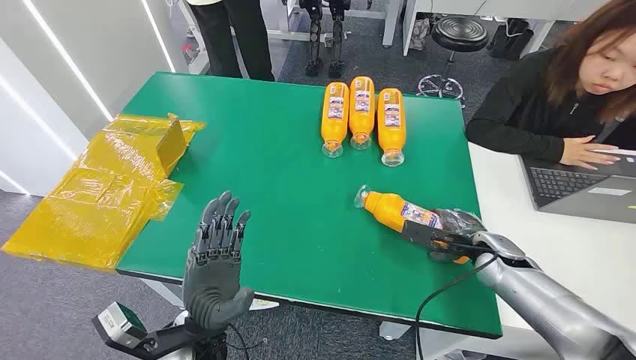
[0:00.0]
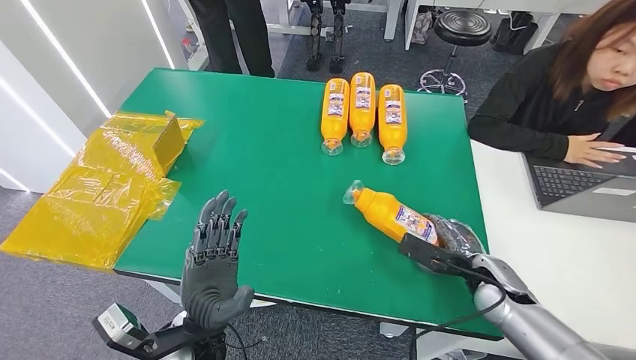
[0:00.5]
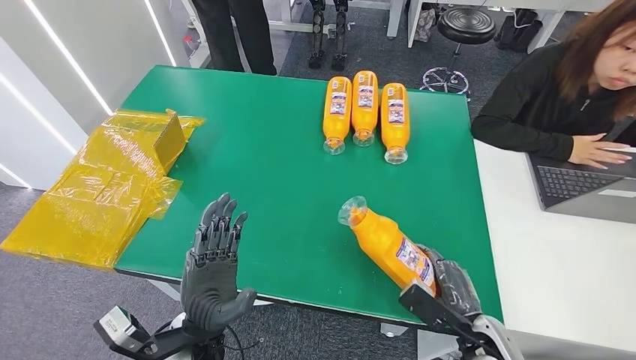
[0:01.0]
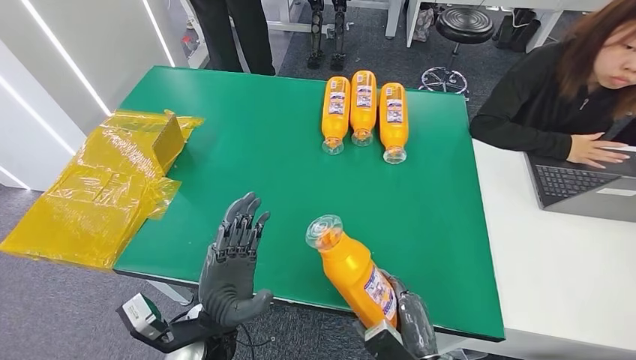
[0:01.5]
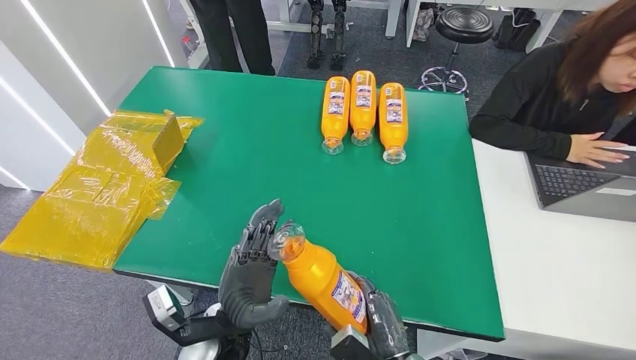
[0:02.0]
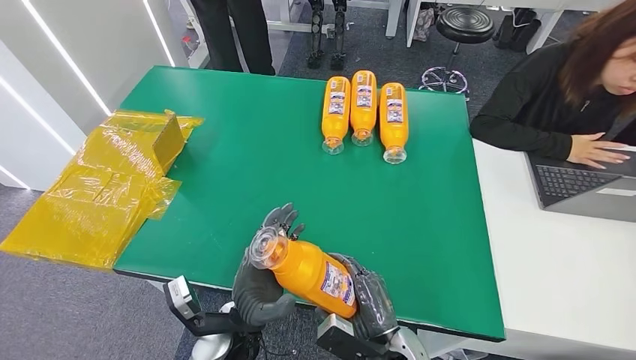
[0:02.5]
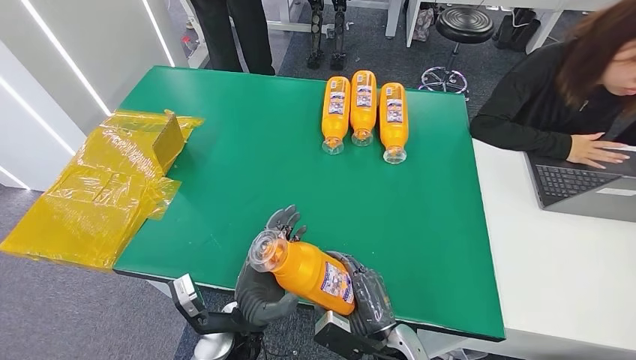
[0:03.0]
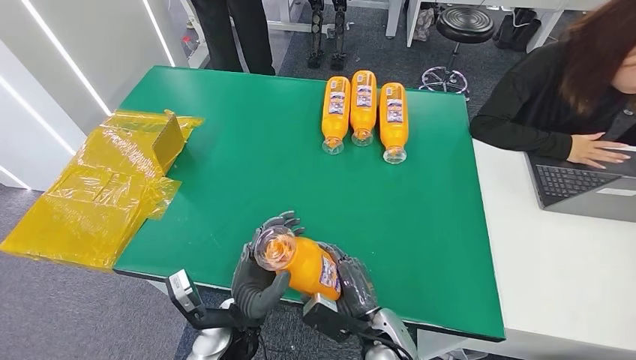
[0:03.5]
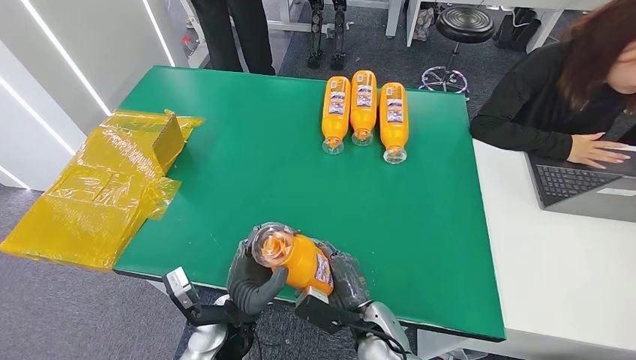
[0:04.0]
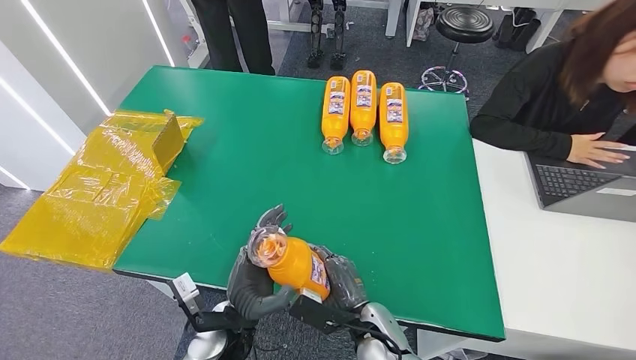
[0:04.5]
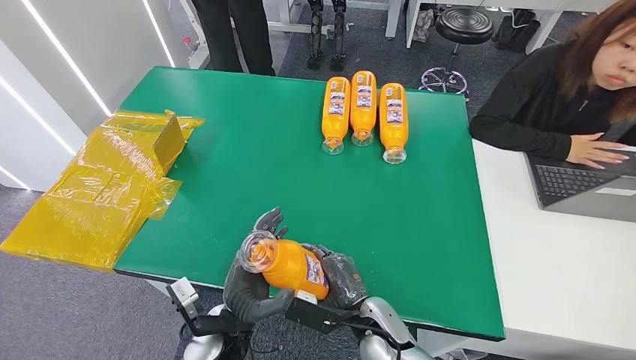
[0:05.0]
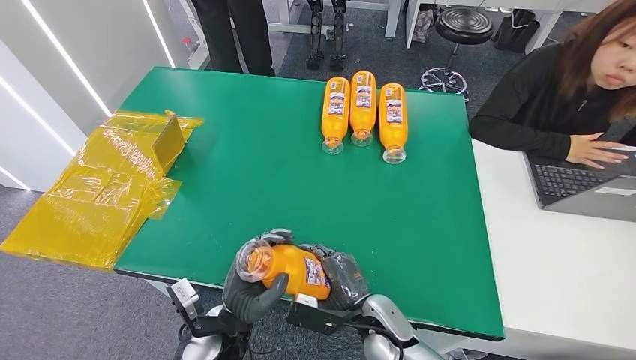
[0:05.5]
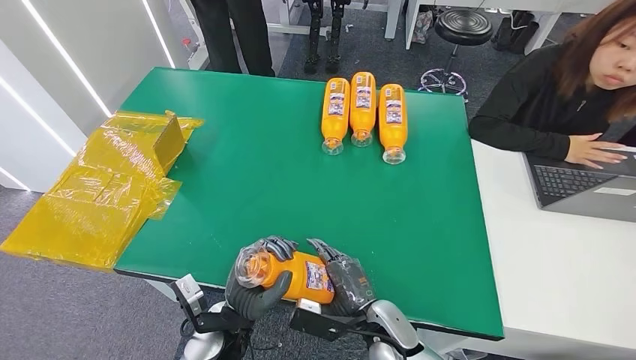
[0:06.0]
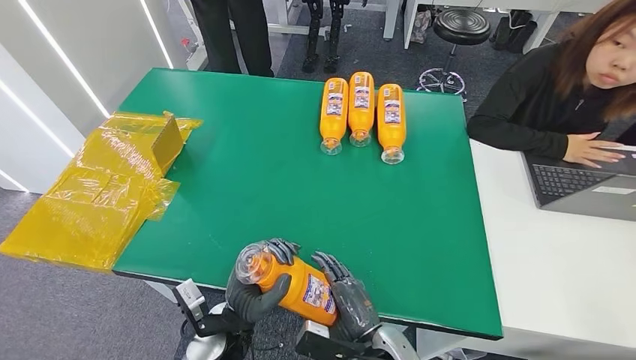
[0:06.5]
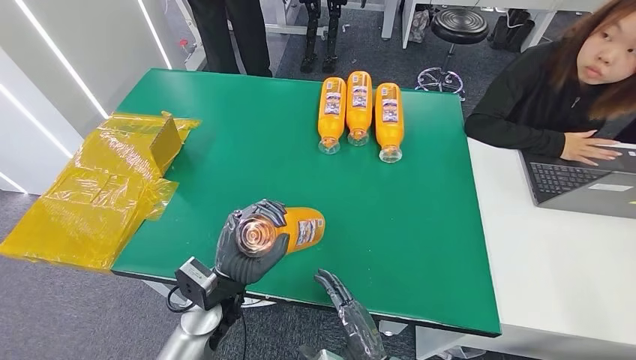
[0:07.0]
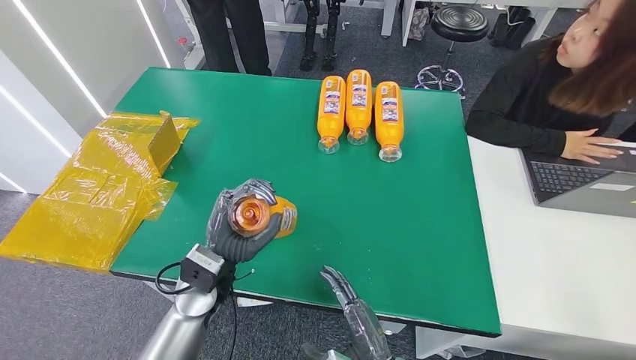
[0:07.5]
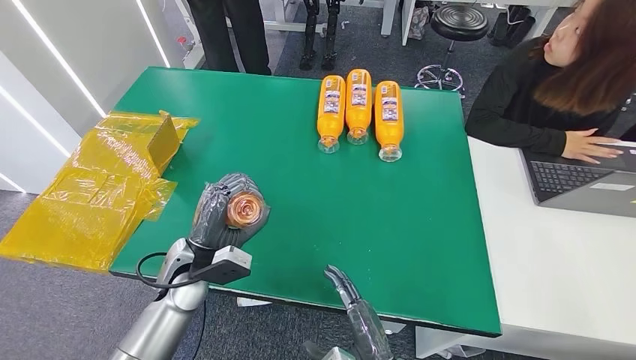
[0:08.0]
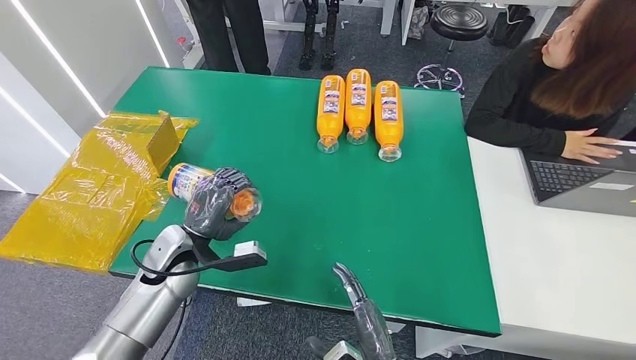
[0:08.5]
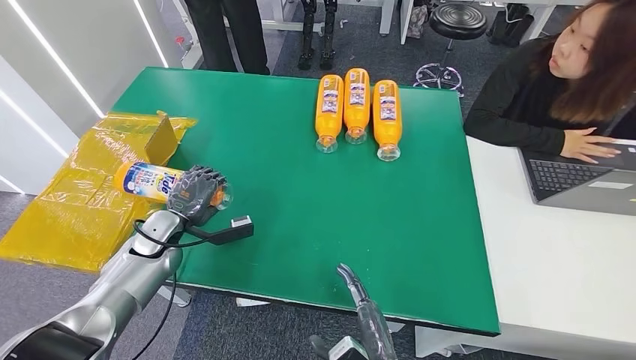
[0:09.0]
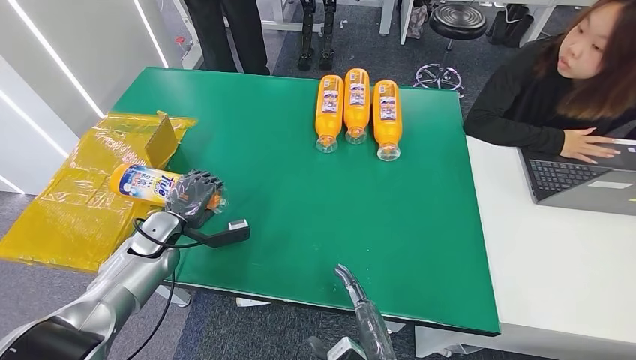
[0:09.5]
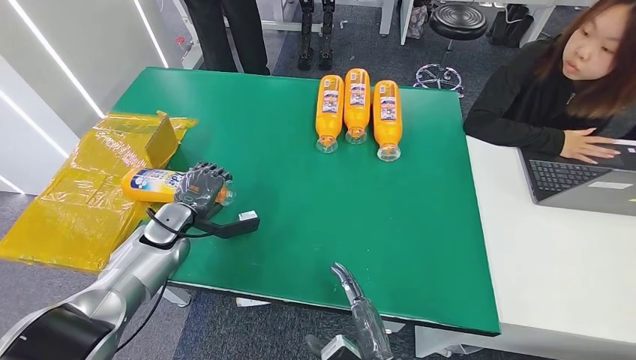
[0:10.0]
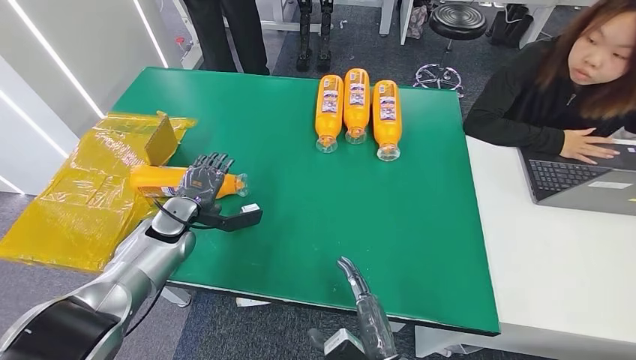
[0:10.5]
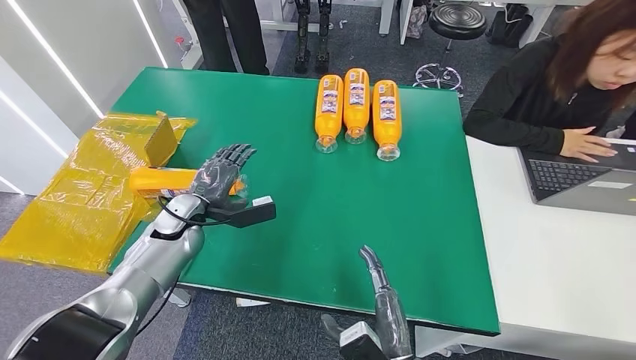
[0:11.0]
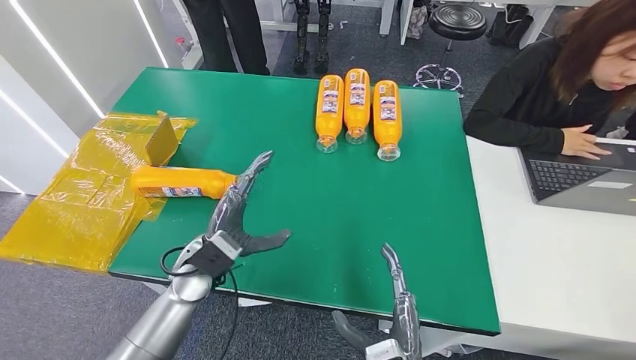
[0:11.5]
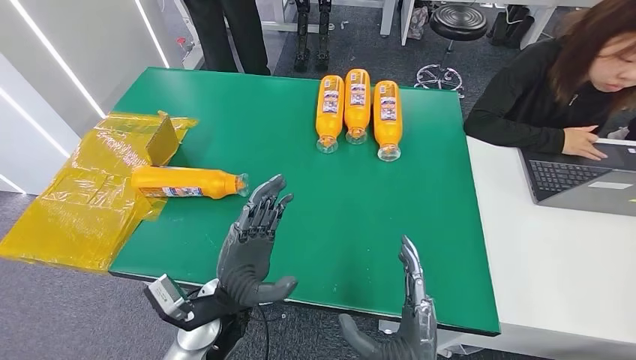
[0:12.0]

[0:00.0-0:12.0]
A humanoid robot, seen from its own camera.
Step, 0:00.0 to 0:03.5: Pick up the bottle from the table.
Step, 0:04.0 to 0:12.0: Turn the bottle to the front side.
0:02.0 to 0:04.0: The right hand moves forward and to the left, roughly 10 cm.
0:04.0 to 0:06.0: The hands make only small movements.
0:08.0 to 0:10.0: The left hand goes approximately 15 cm to the left and forward.
0:10.0 to 0:12.0: The left hand is displaced to the right and backward by roughly 25 cm, while the right hand goes roughly 5 cm upward.
